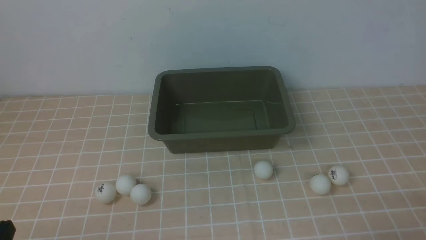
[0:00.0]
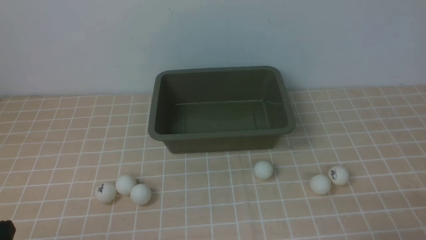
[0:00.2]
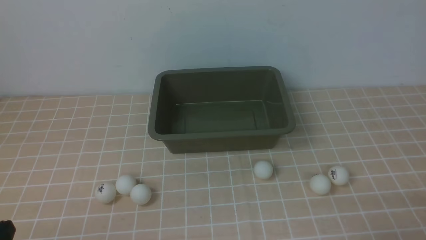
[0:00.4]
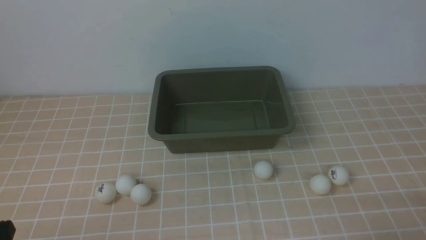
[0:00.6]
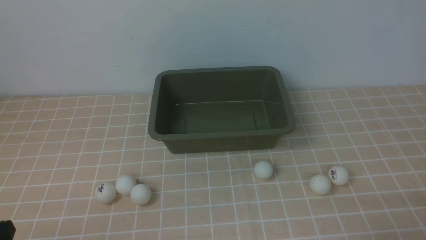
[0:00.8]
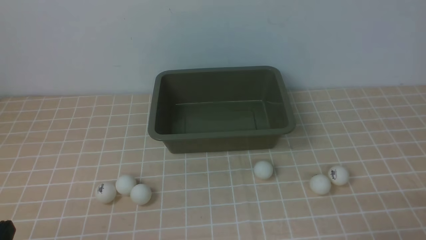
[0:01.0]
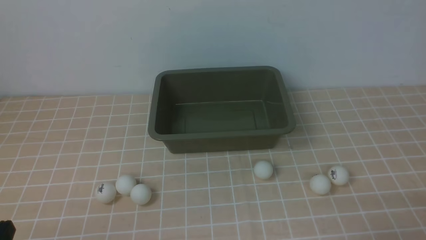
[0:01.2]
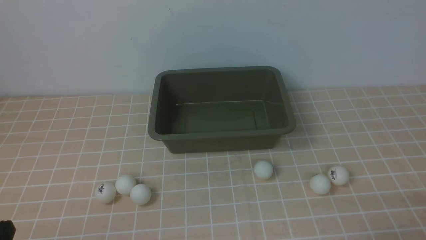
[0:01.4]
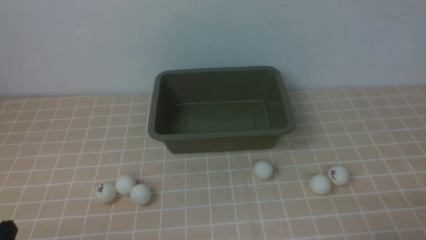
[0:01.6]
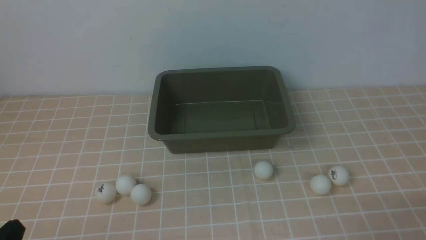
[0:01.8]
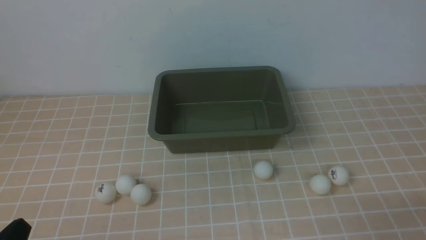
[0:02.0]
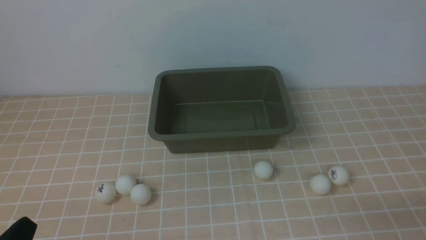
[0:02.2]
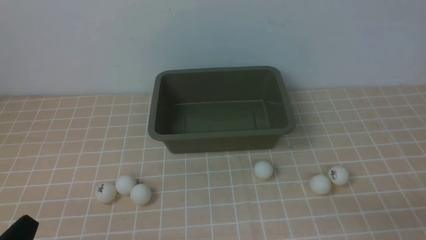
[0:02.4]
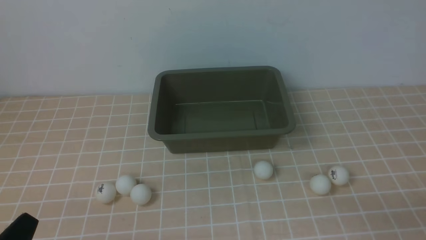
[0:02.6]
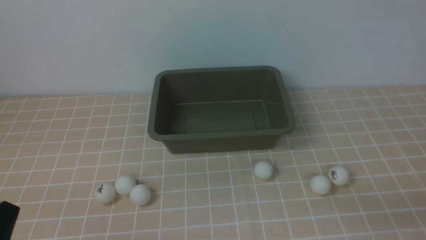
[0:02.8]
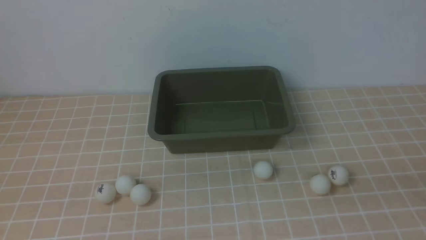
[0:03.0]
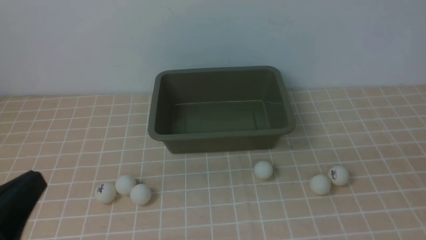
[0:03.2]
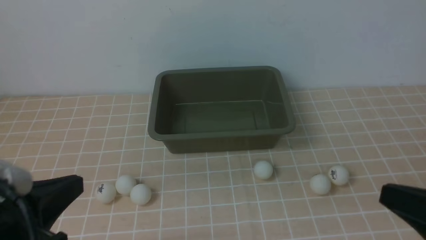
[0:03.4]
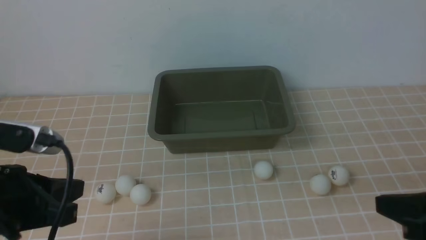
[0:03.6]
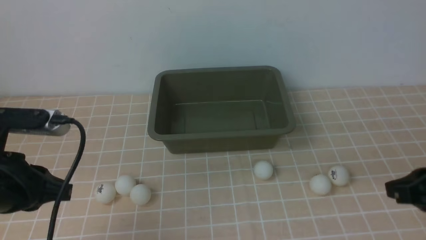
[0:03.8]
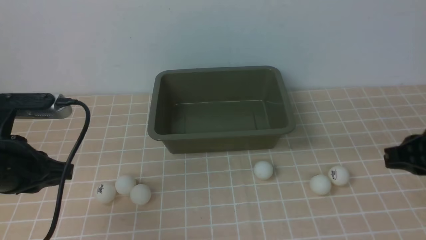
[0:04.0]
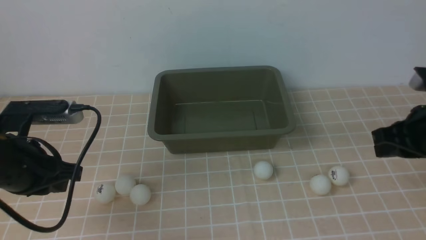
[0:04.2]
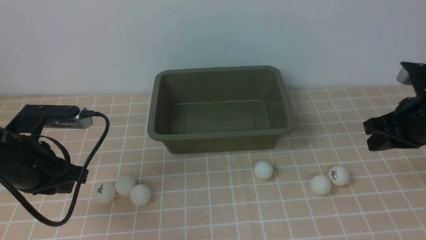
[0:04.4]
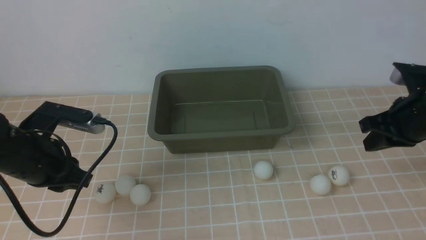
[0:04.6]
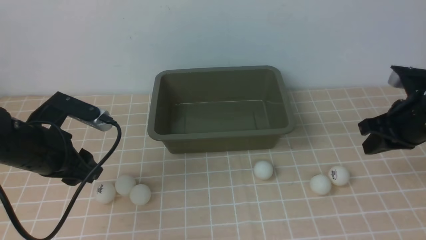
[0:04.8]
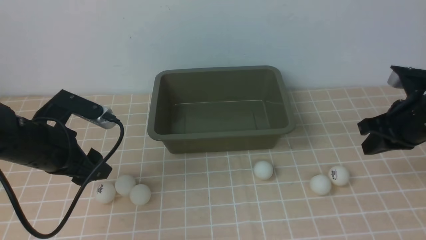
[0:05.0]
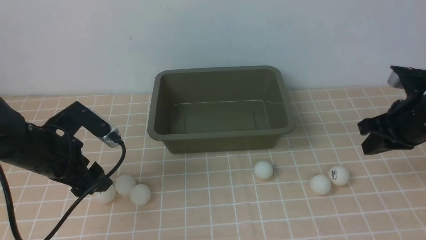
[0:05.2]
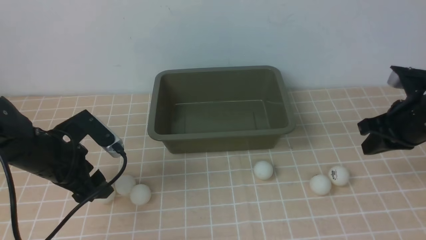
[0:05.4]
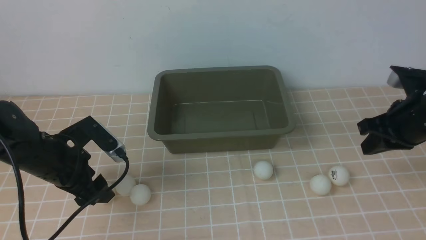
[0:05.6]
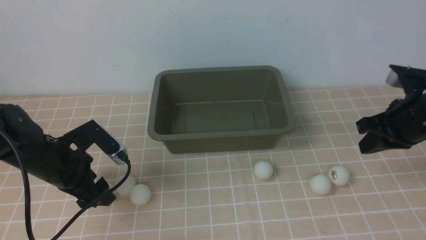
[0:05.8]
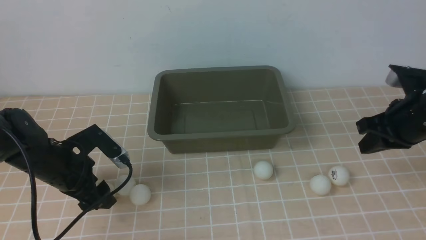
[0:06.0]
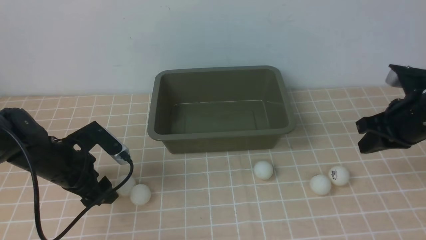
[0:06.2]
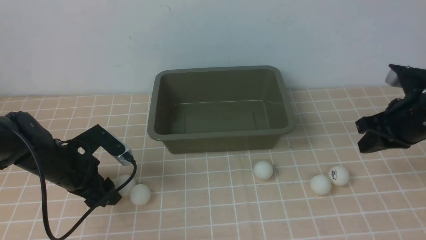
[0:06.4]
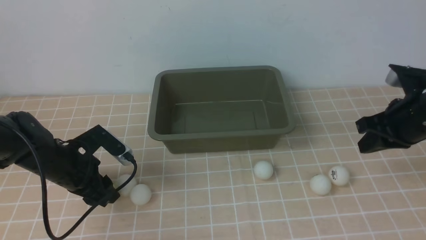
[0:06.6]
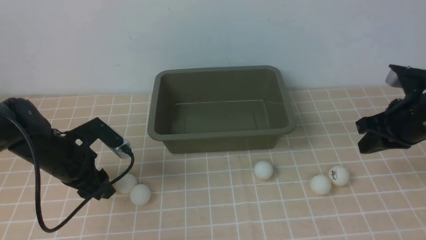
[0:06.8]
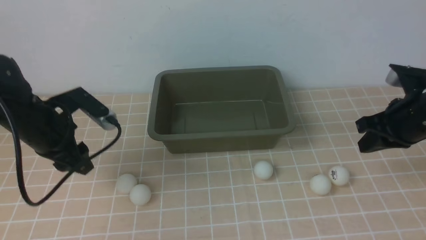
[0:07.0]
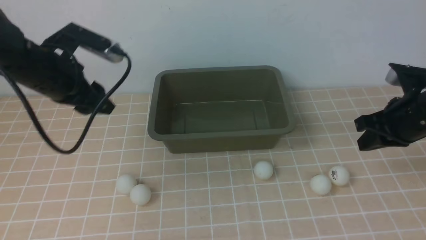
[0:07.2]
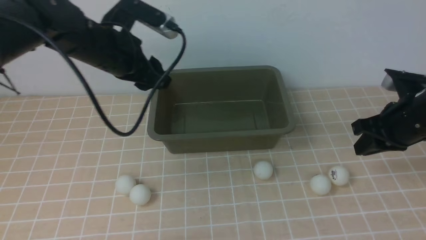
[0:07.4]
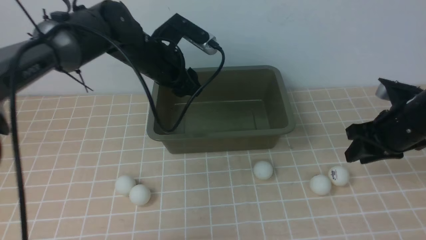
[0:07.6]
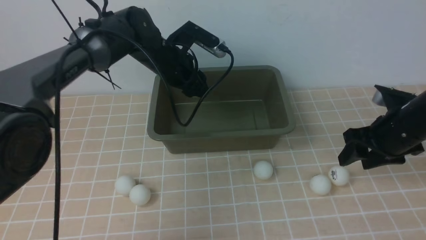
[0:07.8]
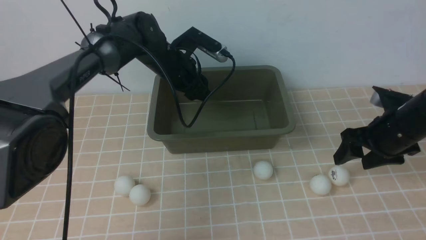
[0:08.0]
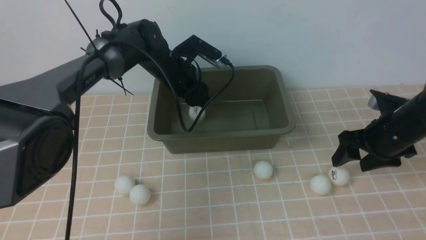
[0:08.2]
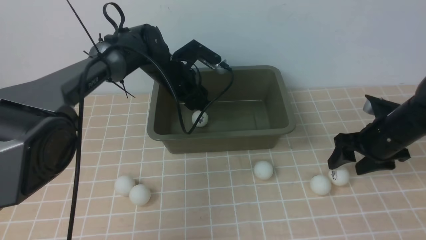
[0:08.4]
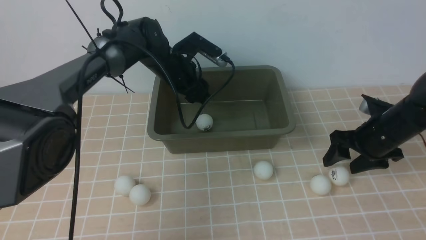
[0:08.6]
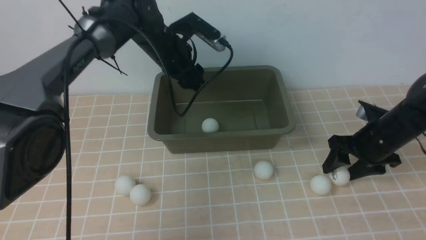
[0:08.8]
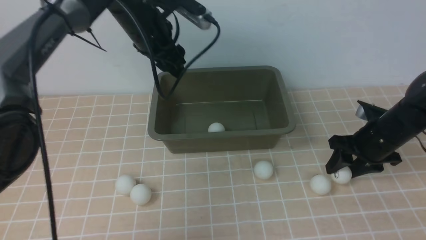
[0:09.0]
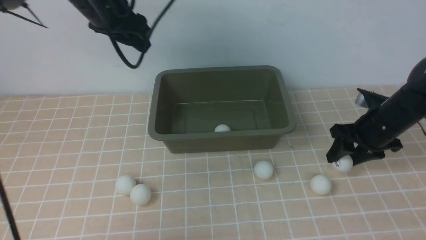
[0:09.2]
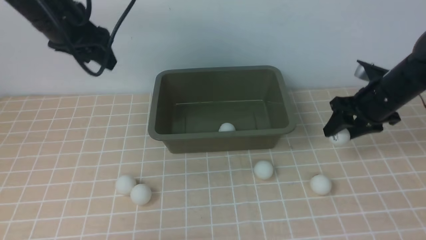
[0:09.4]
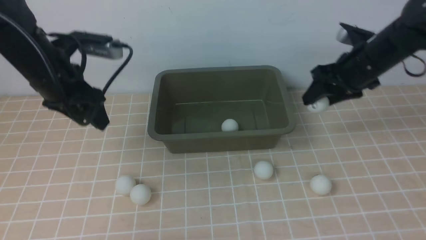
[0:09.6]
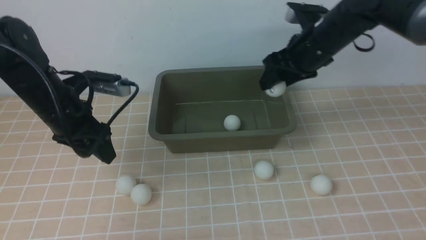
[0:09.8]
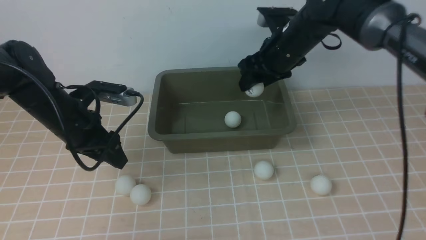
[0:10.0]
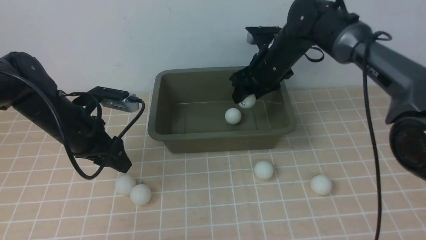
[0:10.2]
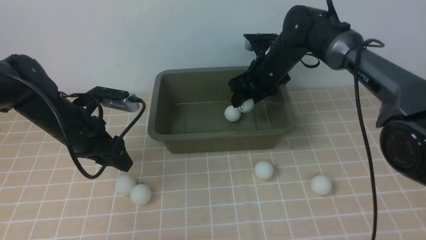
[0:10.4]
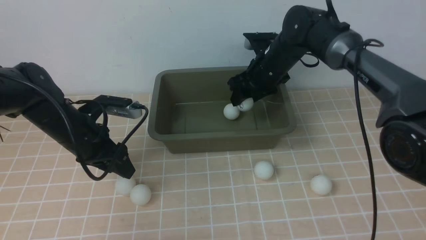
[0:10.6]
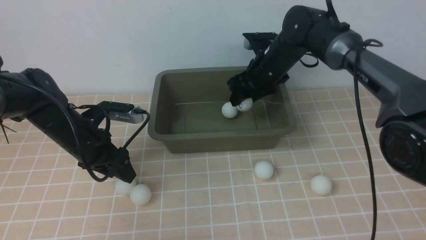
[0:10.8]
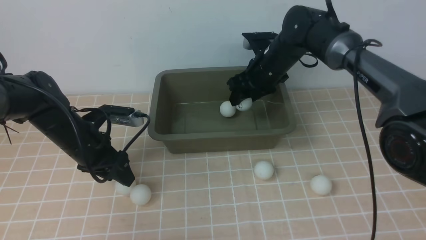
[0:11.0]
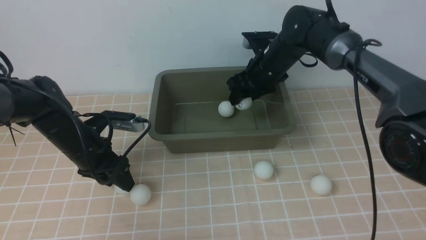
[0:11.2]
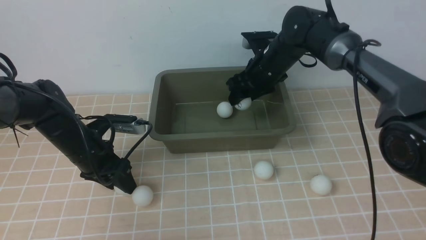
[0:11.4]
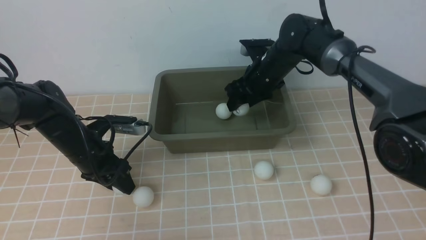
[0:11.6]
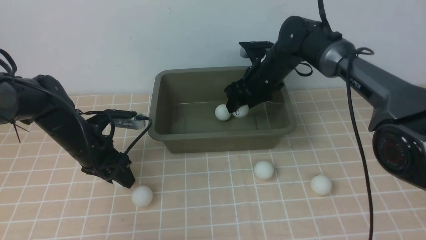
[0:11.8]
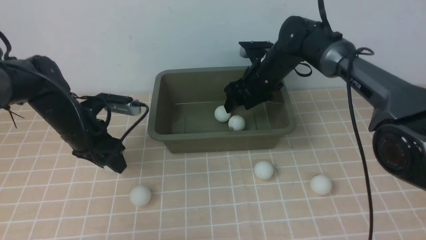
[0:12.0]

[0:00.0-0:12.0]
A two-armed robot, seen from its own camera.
Step, 0:00.0 to 0:07.0: use the left arm to clamp the table tennis ball closest to it.
Step, 0:07.2 to 0:08.0: use the left arm to put the table tennis ball into the box.
Step, 0:08.4 to 0:09.2: use the right arm to clamp the table tennis ball closest to it.
Step, 0:09.4 to 0:11.8: use the right arm to put the table tennis ball into the box.
0:03.0 to 0:04.4: The grippers both shift forward by some 20 cm.
0:04.4 to 0:06.0: The left gripper is displaced downward and forward by roughly 10 cm, and opens its fingers.
0:06.0 to 0:07.6: The left gripper moves forward, to the right and upward, some 20 cm, and closes. Meanwhile the right gripper opens its fingers.
0:07.6 to 0:09.0: The left gripper moves upward, some 5 cm, while the right gripper goes approximately 5 cm downward.
0:09.0 to 0:10.4: The right gripper is displaced to the left and forward by roughly 20 cm, while the left gripper shifts about 20 cm downward, backward and to the left.
0:10.4 to 0:12.0: The grippers stay close to where they were, moving slightly.

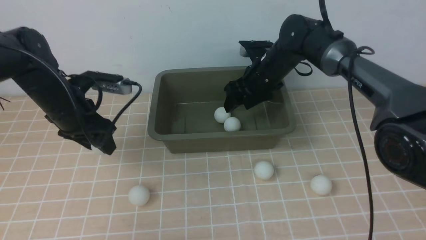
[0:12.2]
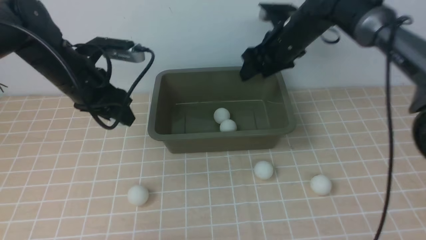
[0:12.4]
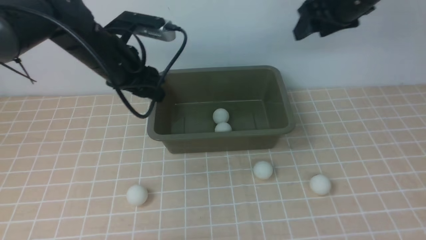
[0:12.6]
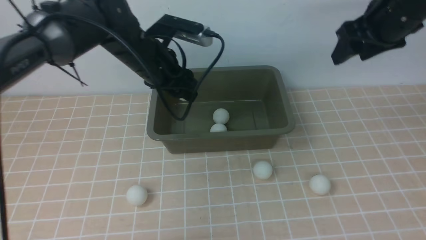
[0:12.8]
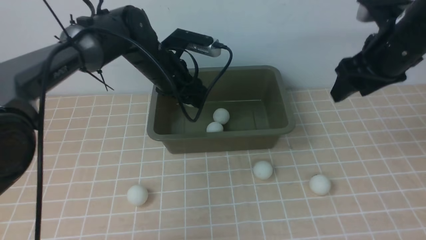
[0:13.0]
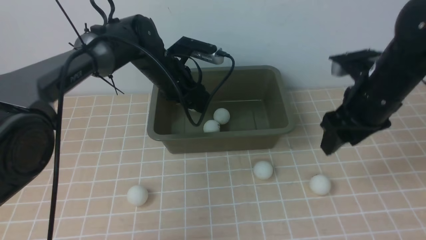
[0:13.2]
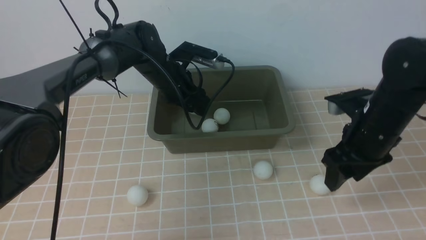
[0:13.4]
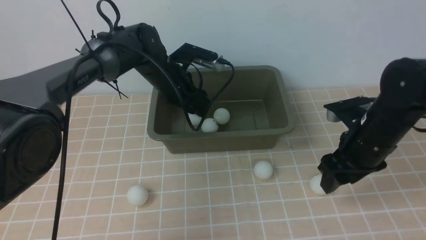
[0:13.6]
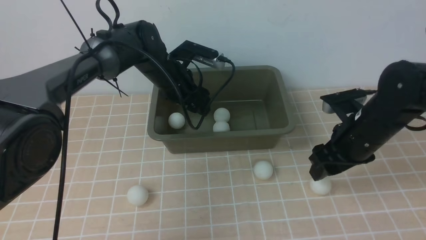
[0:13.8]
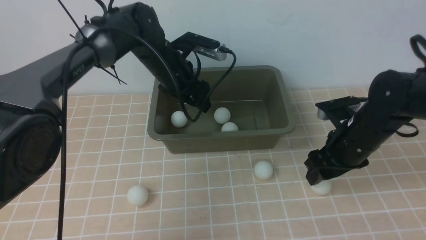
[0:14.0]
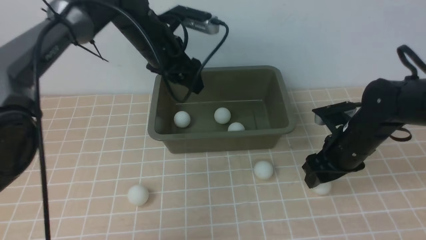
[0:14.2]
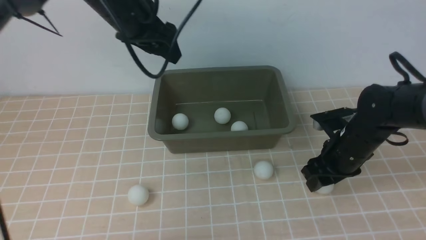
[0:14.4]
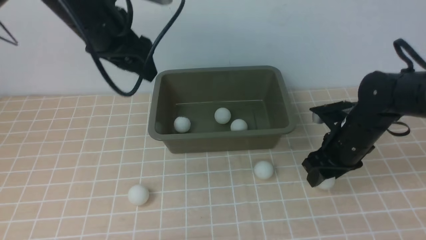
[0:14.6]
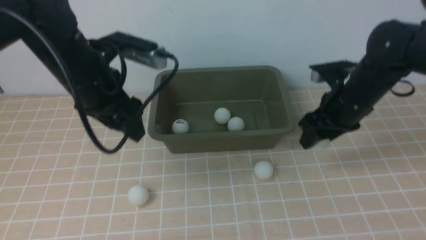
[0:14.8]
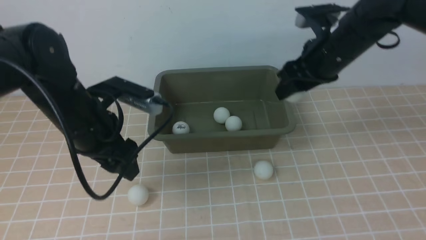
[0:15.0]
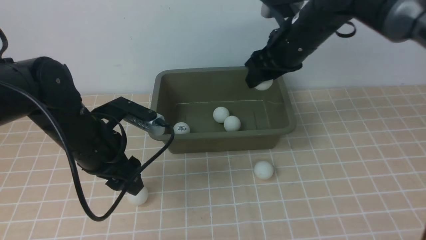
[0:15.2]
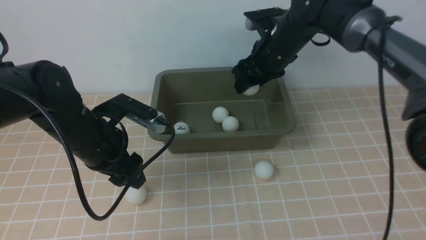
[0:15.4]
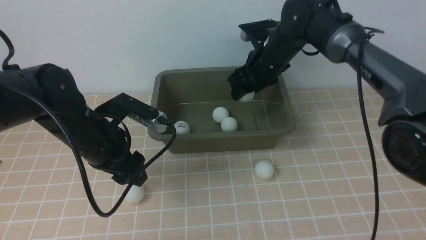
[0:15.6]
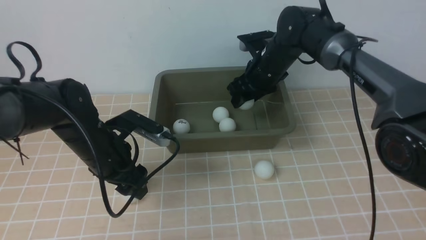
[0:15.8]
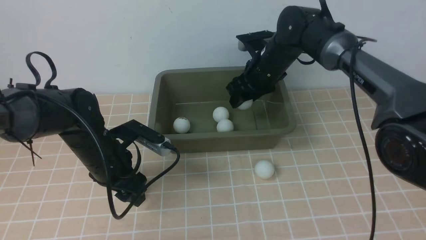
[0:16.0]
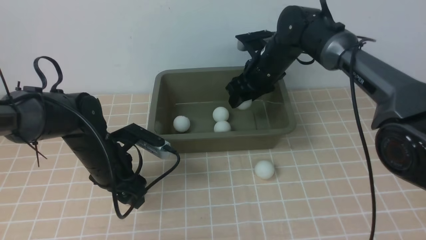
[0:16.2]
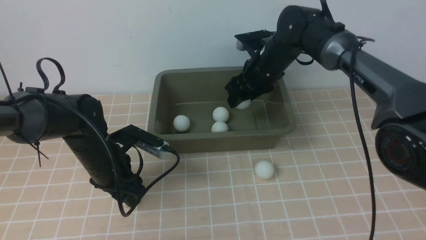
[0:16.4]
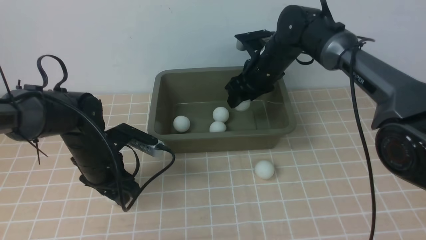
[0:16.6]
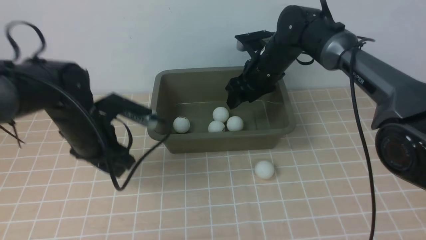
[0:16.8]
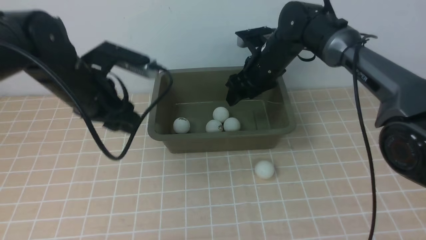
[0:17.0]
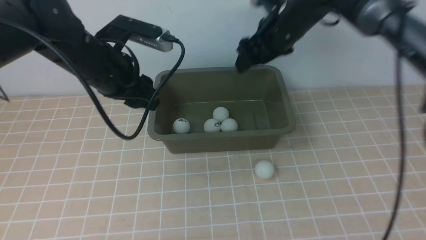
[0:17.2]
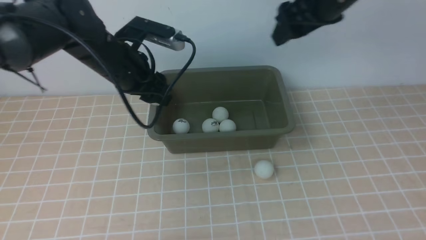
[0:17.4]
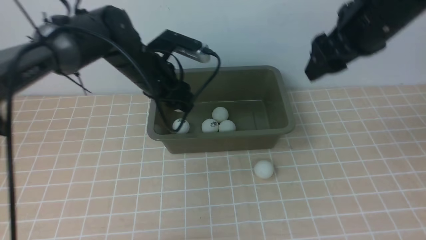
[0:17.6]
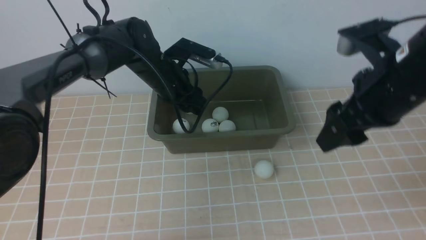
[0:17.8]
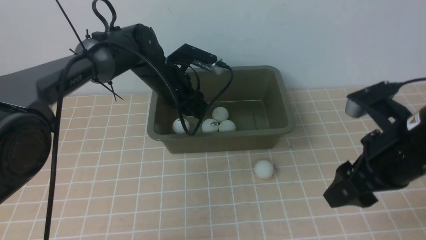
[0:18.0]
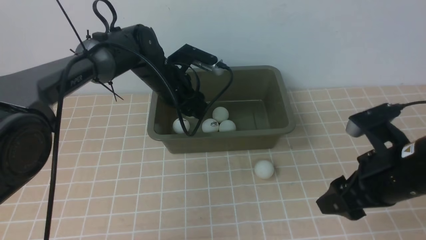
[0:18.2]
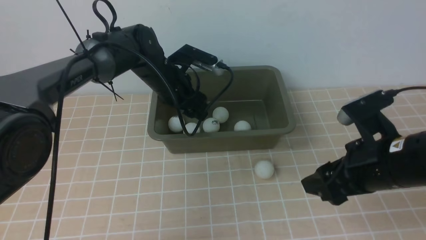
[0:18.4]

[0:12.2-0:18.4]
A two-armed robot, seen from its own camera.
Step, 0:12.4 to 0:13.8: use the left arm to put the table tennis ball into the box.
Step, 0:14.0 to 0:14.6: use the right arm to clamp the table tennis ball closest to it.
Step, 0:15.0 to 0:16.6: use the right arm to put the table tennis ball into the box.
Step, 0:17.2 to 0:18.2: use the left arm to put the table tennis ball into the box.
0:12.2 to 0:13.8: The right gripper is displaced backward and to the right by approximately 20 cm, while the left gripper goes approximately 15 cm to the right and forward.
0:13.8 to 0:15.4: The left gripper is displaced backward and to the left by some 20 cm, while the right gripper heads forward, to the left and upward, covering approximately 20 cm.
0:16.8 to 0:18.4: The left gripper goes about 15 cm forward and to the right. The right gripper travels backward by some 25 cm.
